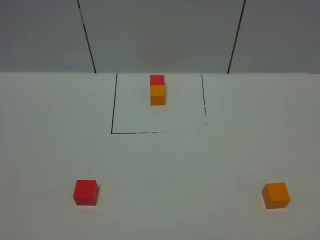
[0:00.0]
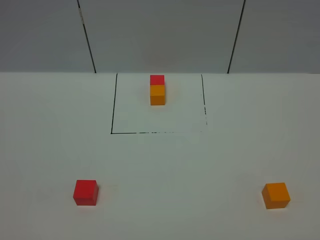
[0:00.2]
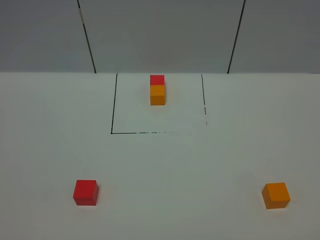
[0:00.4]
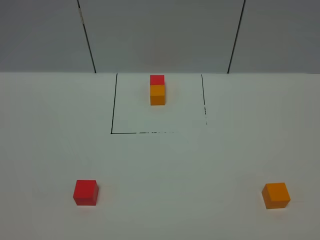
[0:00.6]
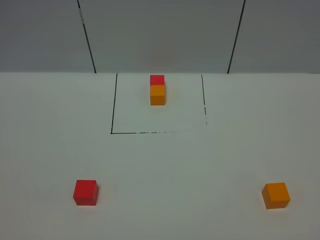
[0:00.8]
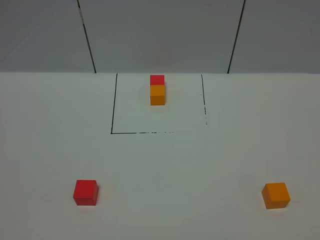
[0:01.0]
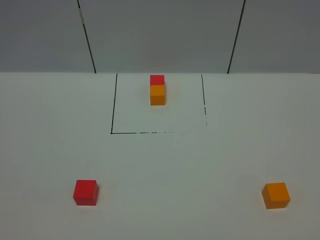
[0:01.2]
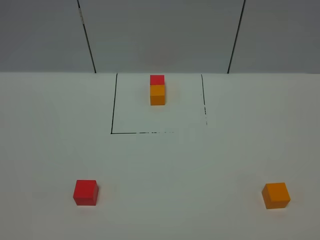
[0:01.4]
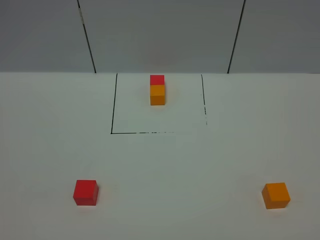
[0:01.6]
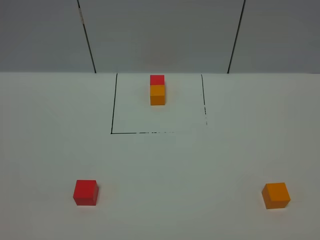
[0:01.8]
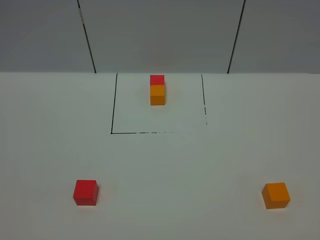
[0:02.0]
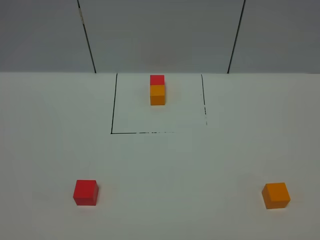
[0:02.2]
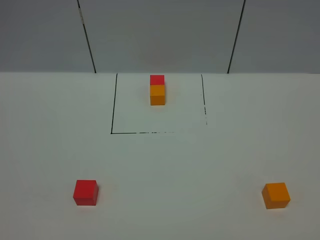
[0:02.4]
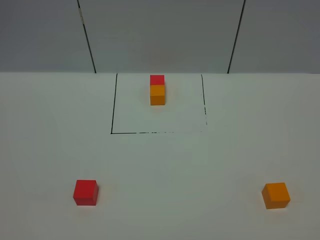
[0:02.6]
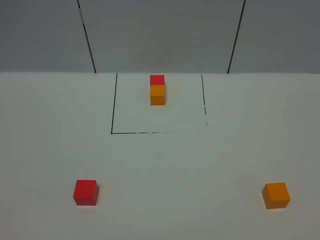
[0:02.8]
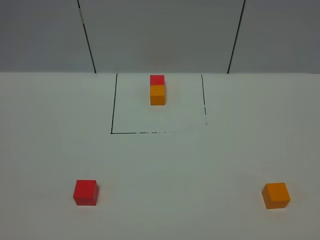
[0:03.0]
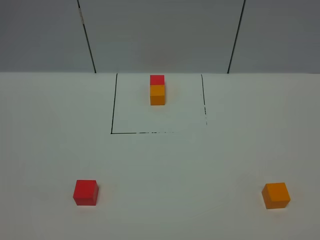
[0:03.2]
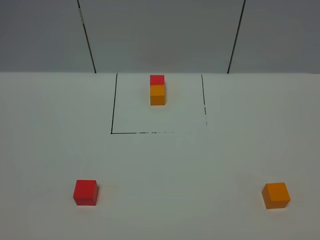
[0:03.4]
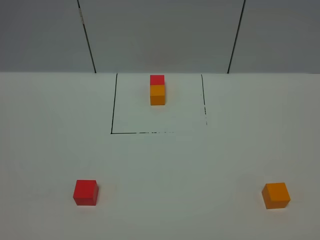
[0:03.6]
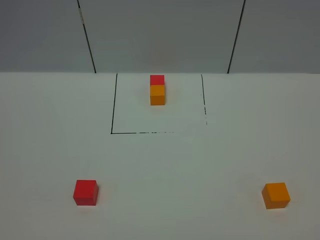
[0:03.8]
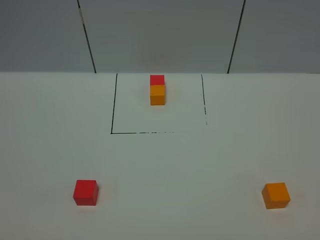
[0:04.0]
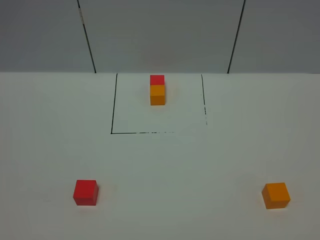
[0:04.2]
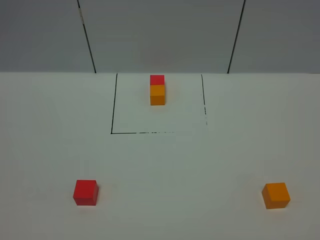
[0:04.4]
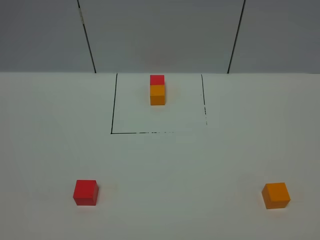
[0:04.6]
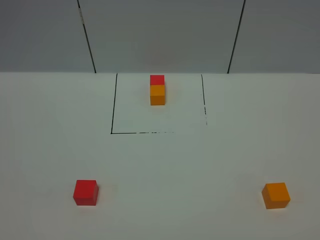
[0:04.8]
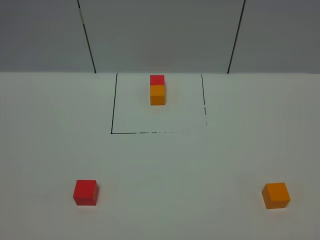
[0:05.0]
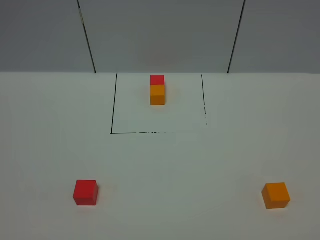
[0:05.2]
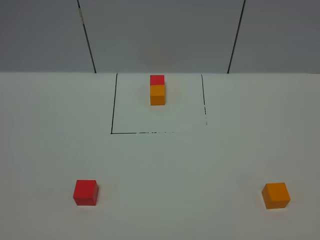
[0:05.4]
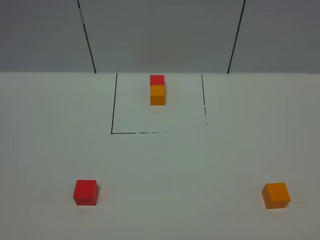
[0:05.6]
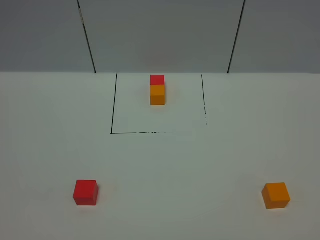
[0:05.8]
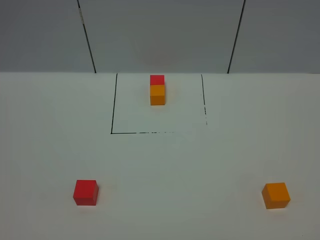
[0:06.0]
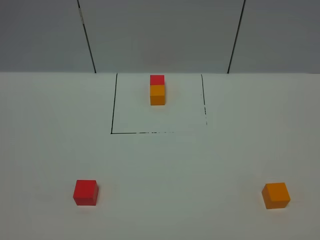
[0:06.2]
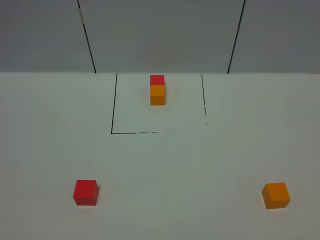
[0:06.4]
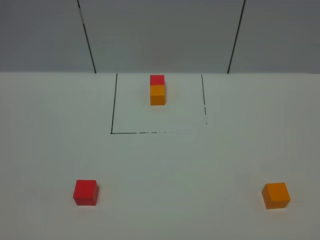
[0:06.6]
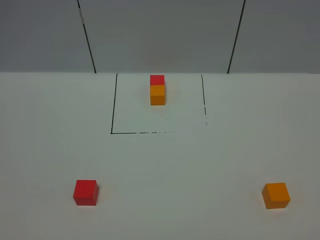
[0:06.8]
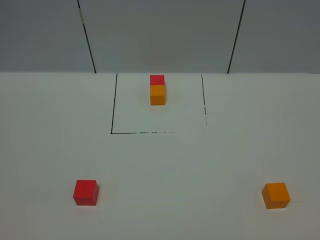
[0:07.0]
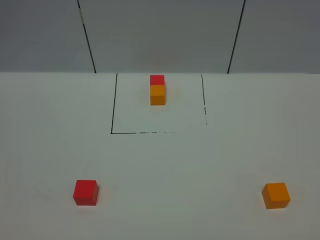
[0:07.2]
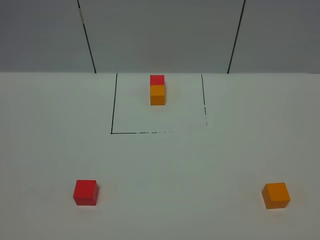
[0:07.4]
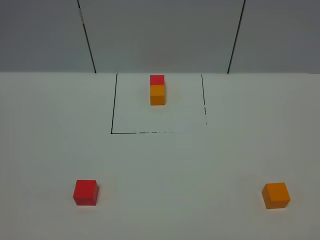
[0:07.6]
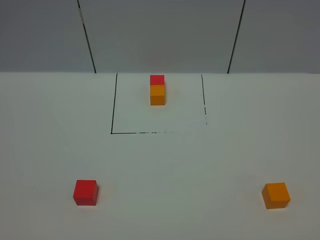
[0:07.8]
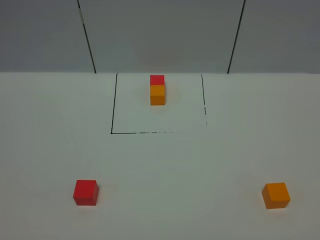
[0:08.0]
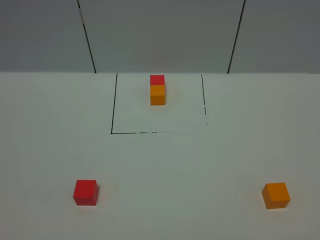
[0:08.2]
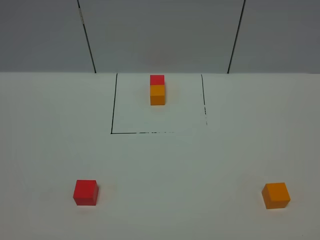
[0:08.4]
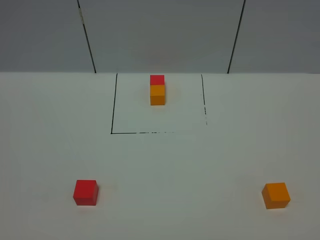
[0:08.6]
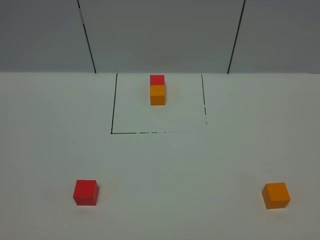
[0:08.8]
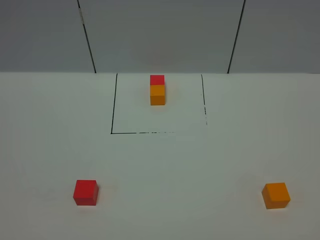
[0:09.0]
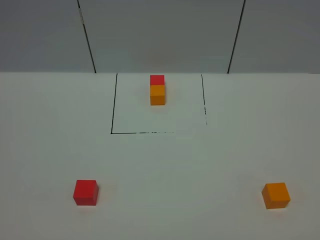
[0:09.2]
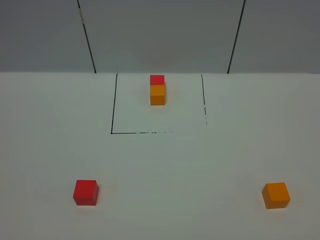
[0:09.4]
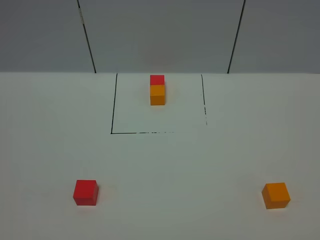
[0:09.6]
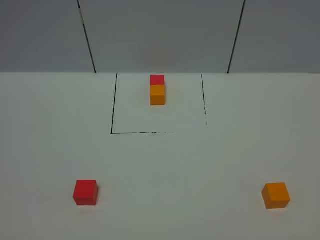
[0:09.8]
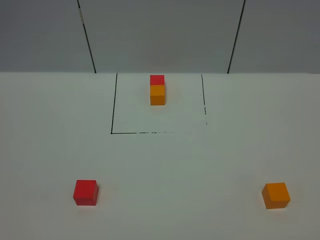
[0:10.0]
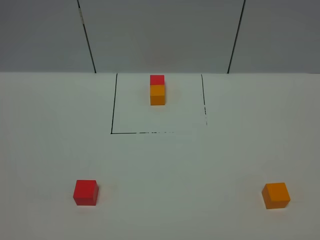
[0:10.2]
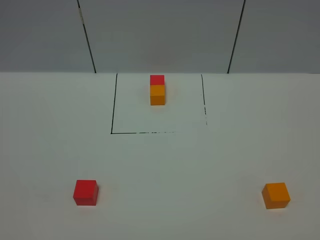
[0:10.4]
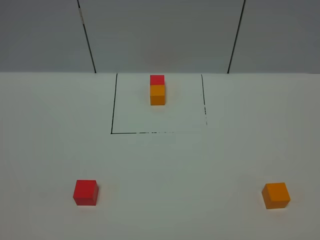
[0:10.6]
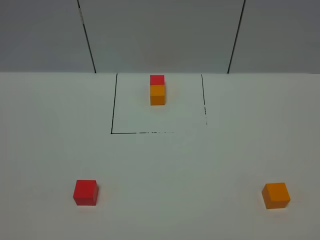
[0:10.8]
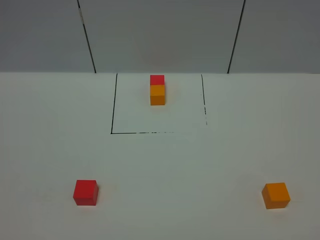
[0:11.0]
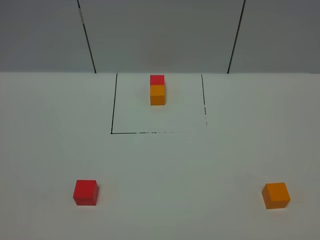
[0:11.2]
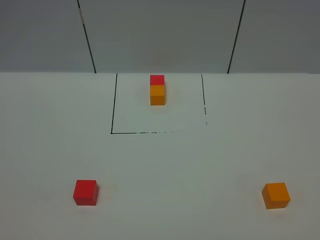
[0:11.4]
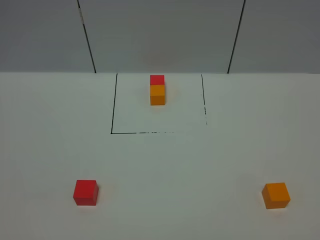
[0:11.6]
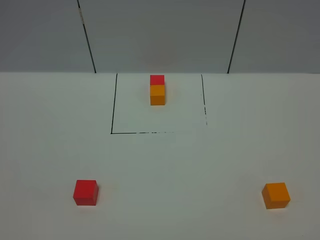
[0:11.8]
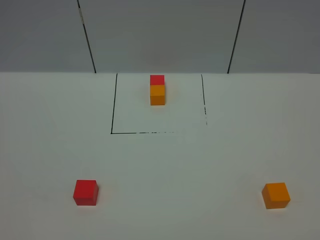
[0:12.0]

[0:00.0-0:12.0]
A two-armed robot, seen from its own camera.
Task of the whole recording: According to the building block template in front, assemble the scattered blocks together.
0:00.0 to 0:12.0: Both grippers stay put.

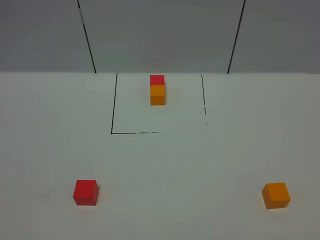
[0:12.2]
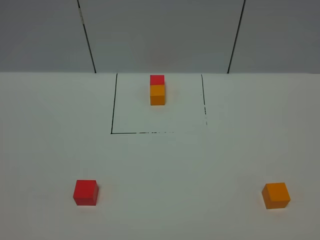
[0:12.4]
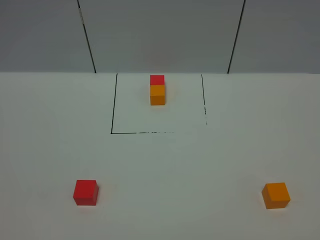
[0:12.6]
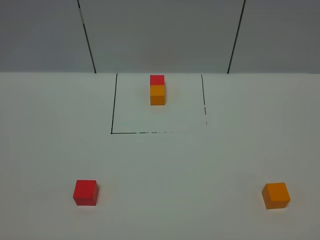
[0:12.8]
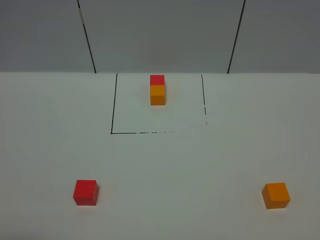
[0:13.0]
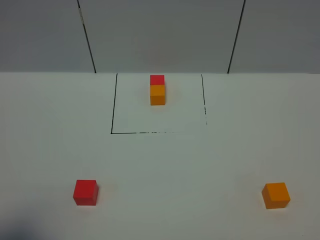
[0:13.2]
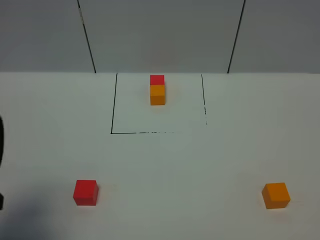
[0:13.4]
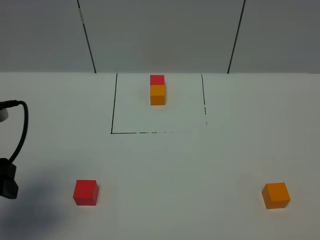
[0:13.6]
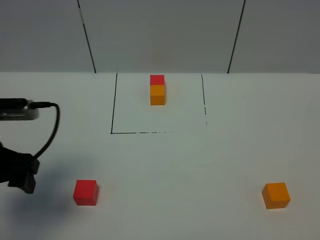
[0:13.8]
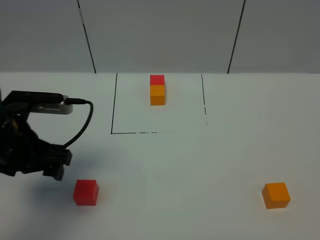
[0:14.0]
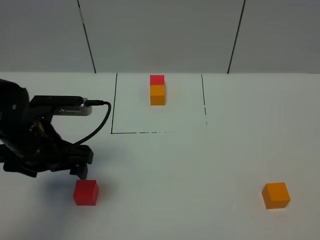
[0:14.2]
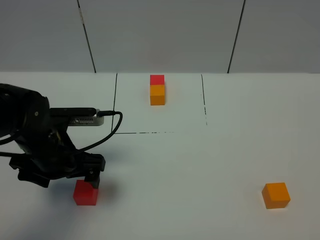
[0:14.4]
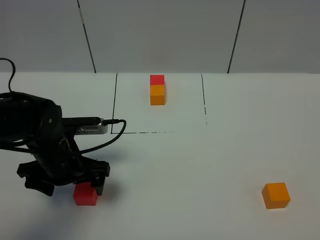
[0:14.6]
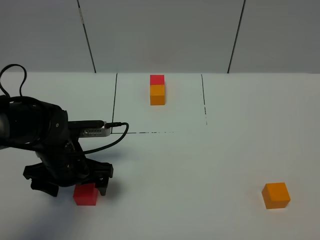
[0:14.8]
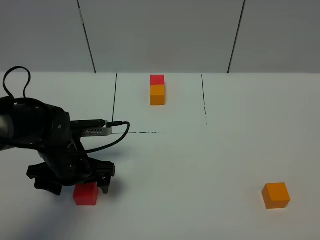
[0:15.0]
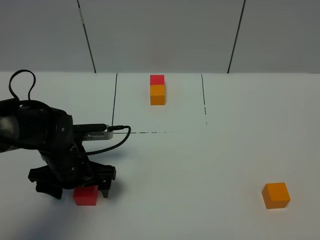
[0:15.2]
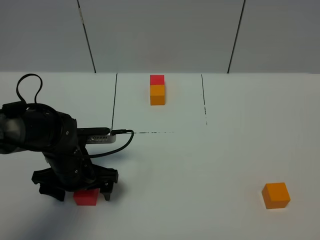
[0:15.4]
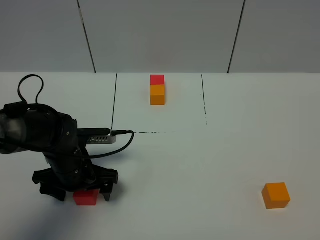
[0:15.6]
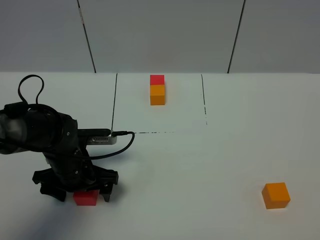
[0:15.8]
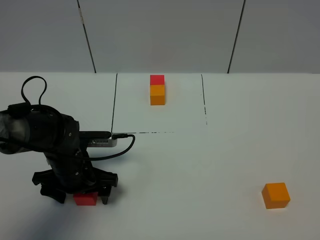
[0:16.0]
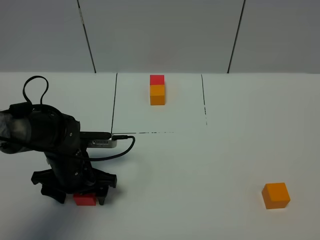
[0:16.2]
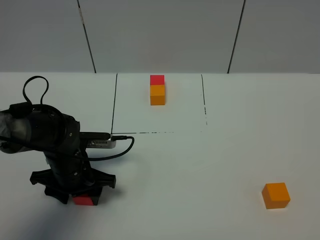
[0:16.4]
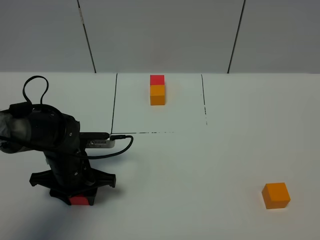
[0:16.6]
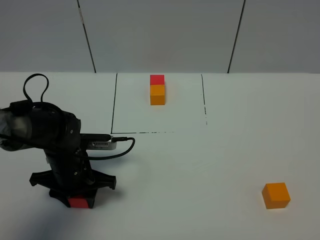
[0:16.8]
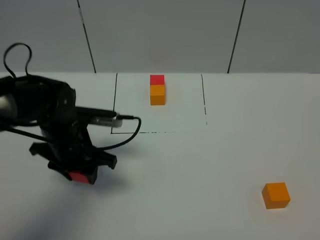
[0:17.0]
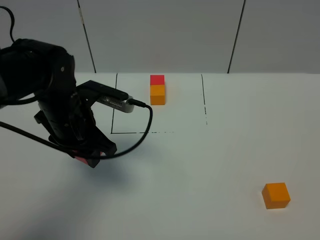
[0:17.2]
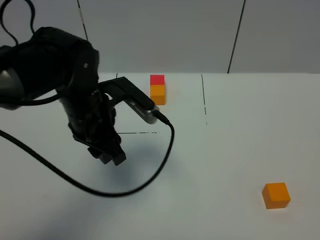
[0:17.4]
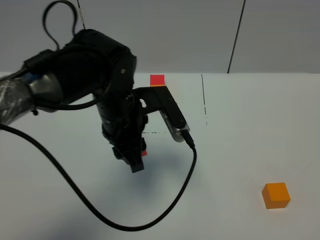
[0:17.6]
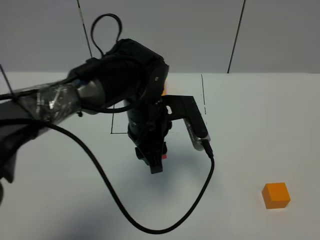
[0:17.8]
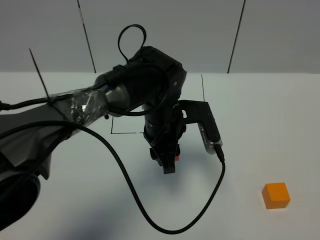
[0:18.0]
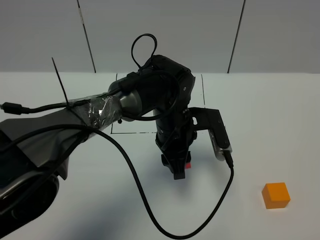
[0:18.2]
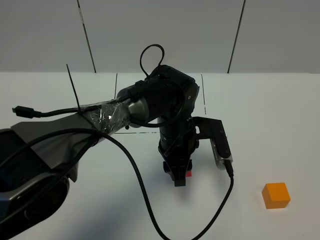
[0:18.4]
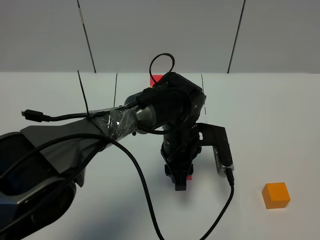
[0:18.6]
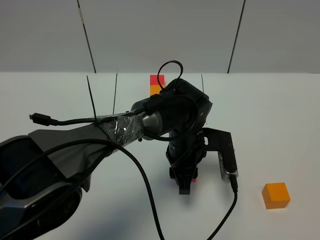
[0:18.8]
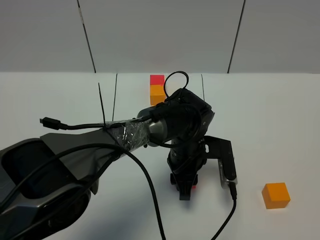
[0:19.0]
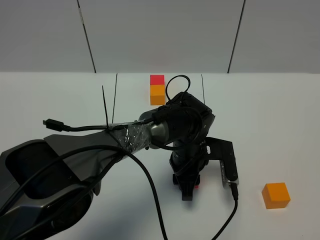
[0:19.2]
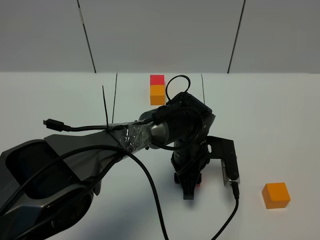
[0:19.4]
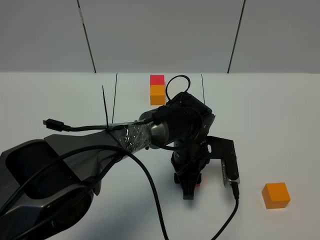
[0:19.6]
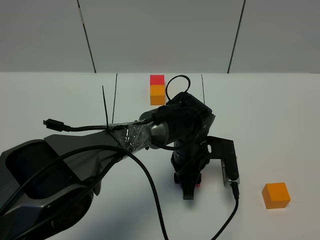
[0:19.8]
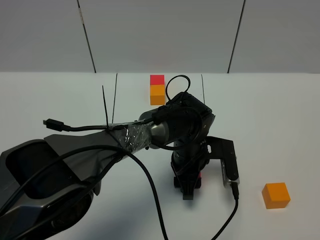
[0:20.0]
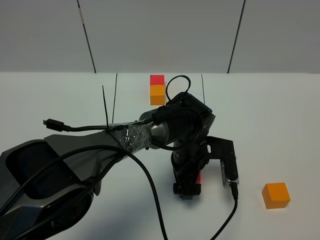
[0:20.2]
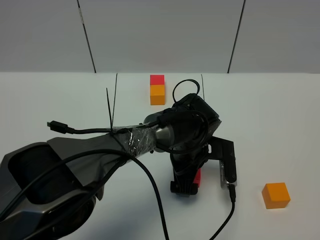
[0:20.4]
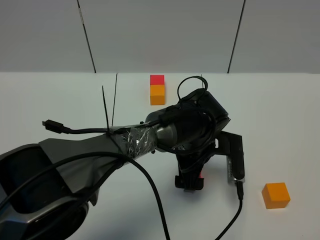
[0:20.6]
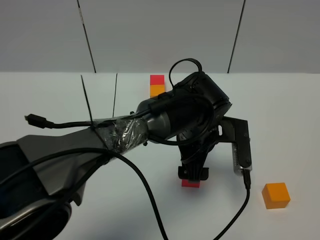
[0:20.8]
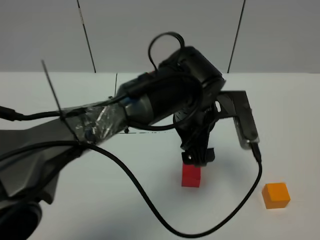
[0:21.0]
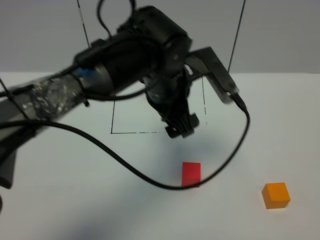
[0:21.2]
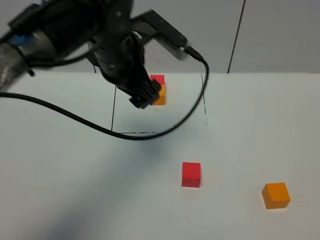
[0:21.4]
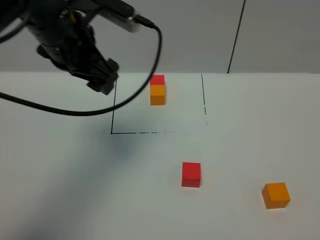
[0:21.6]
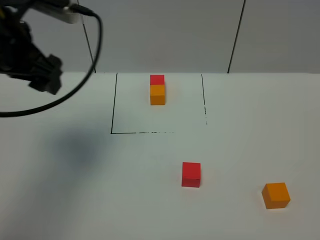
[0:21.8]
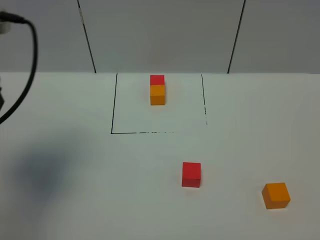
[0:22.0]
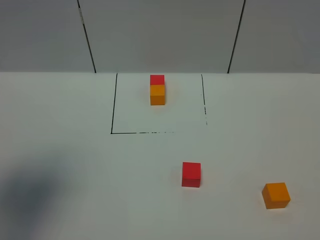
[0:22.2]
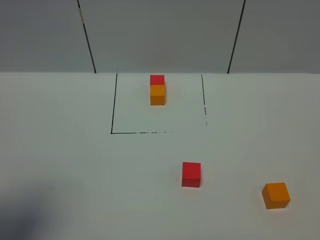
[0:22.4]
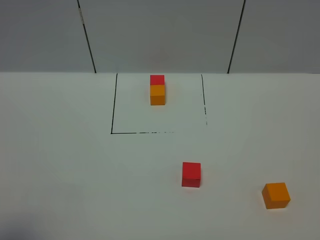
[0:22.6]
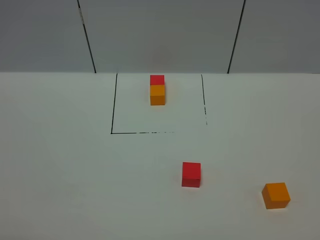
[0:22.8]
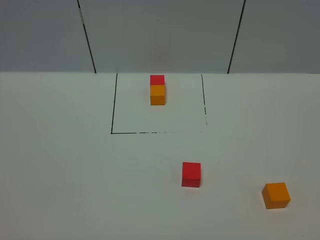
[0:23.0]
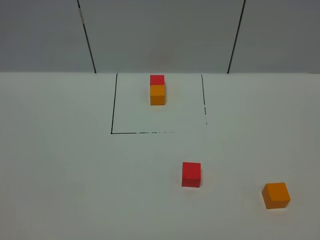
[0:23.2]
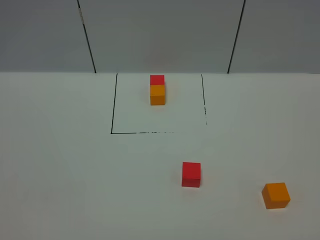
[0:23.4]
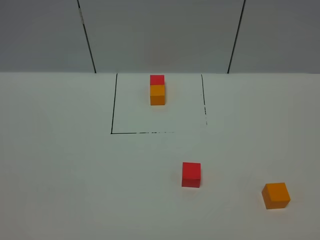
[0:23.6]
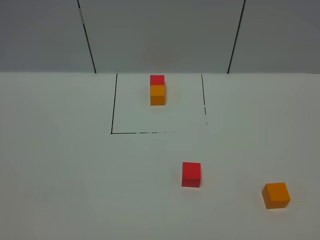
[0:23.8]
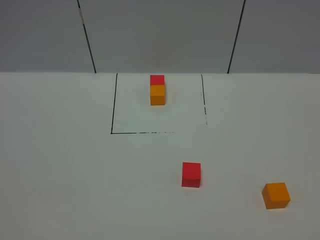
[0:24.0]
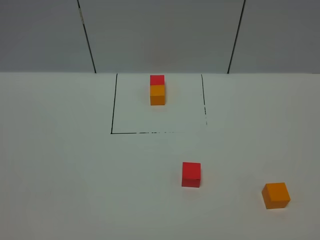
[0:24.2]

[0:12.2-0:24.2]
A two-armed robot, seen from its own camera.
Task of the whole recording: According to the building block template in front, assemble the scattered blocks together.
Step, 0:13.4 to 0:20.4: Put the red cube in the center of the table.
0:12.2 to 0:13.8: The left gripper travels forward by some 25 cm.
0:13.8 to 0:15.2: The left gripper is displaced downward, to the right and forward by about 15 cm.
0:15.2 to 0:16.6: The left gripper closes its fingers.
0:16.6 to 0:18.2: The left gripper travels to the right by roughly 20 cm.
0:18.2 to 0:19.8: The left gripper goes some 5 cm downward.
0:19.8 to 0:21.2: The left gripper moves upward, roughly 20 cm, and opens.
0:21.2 to 0:22.6: The left gripper shifts about 40 cm to the left and backward.
